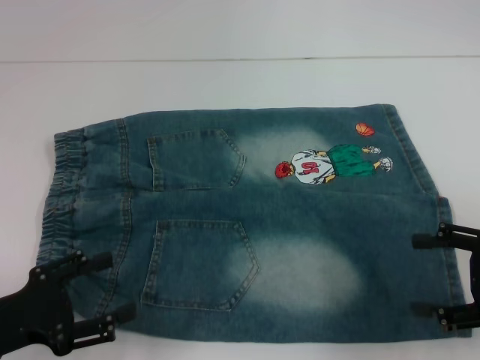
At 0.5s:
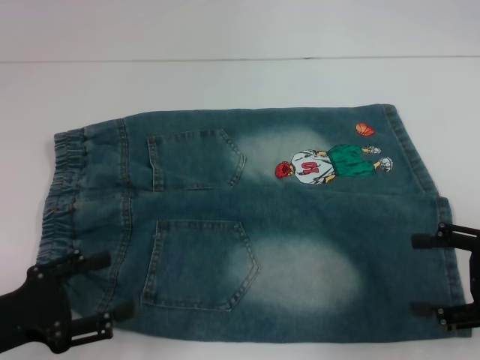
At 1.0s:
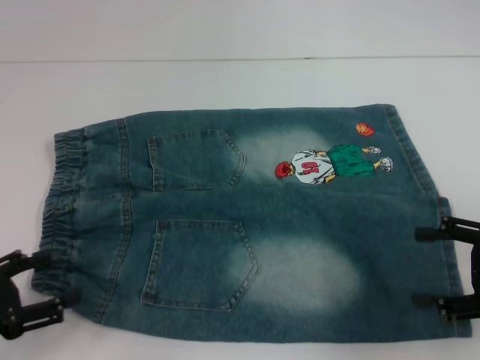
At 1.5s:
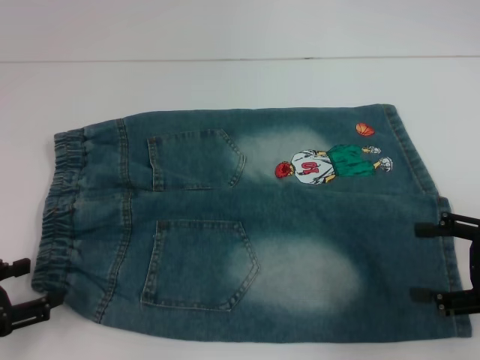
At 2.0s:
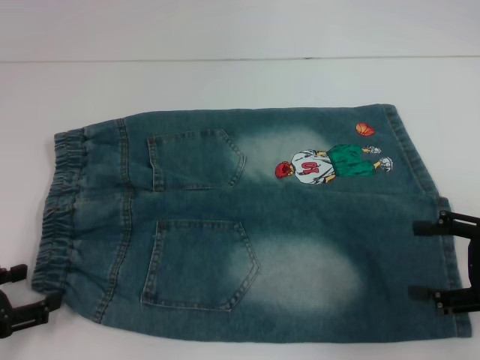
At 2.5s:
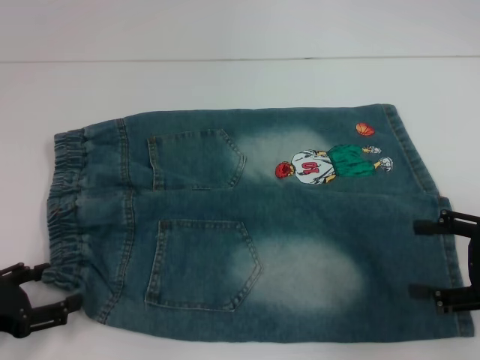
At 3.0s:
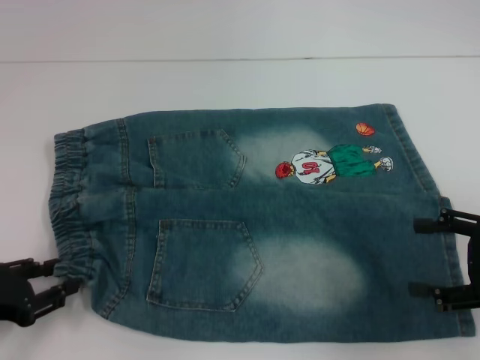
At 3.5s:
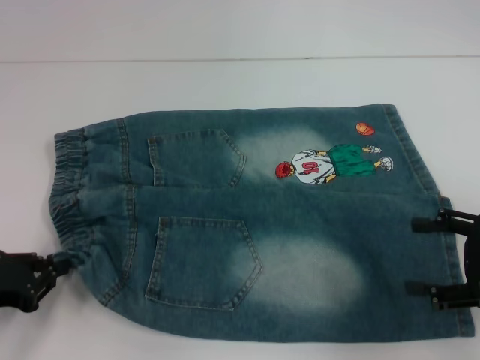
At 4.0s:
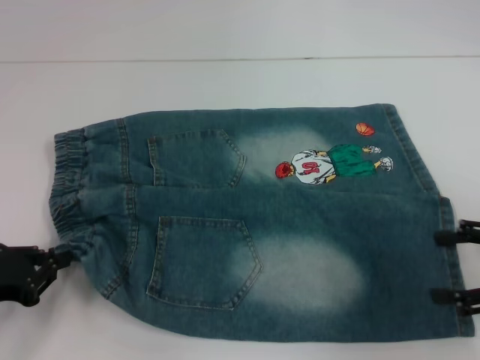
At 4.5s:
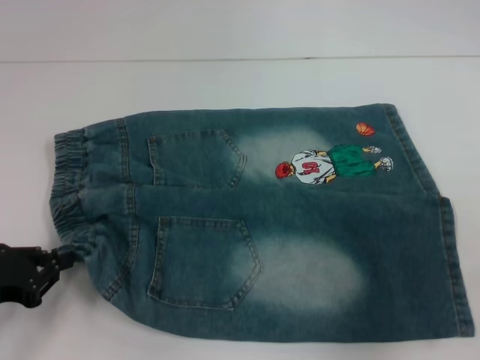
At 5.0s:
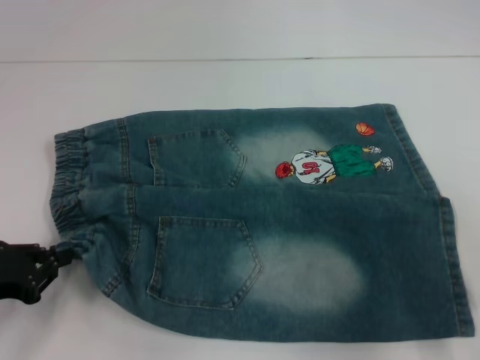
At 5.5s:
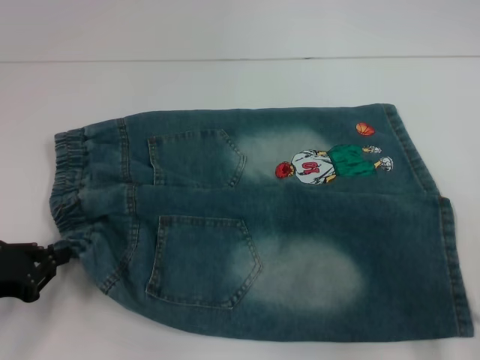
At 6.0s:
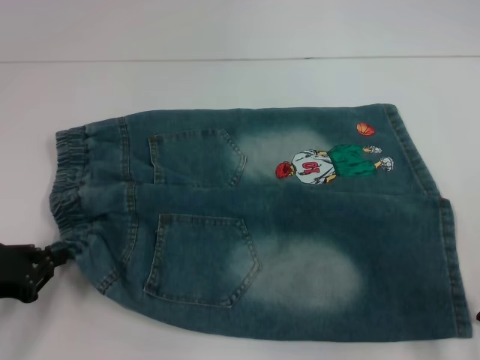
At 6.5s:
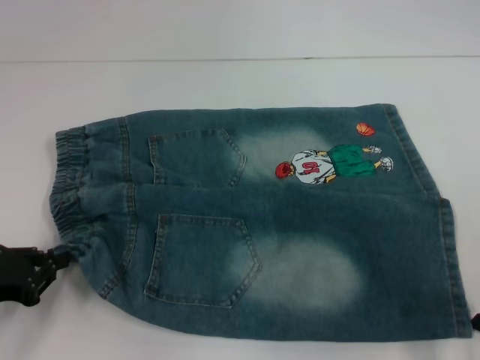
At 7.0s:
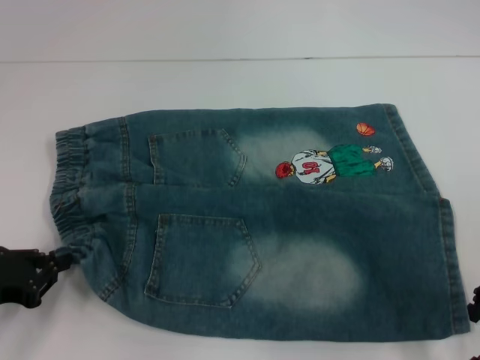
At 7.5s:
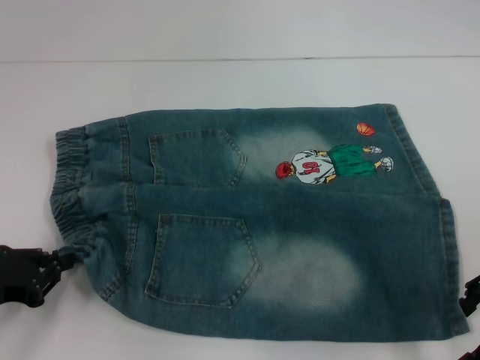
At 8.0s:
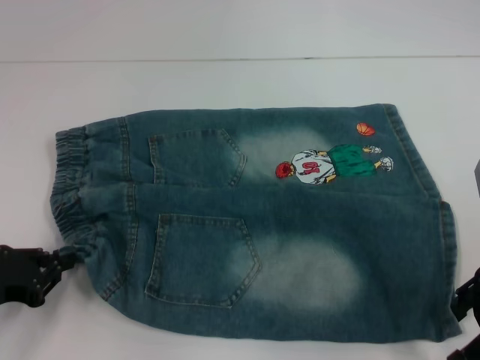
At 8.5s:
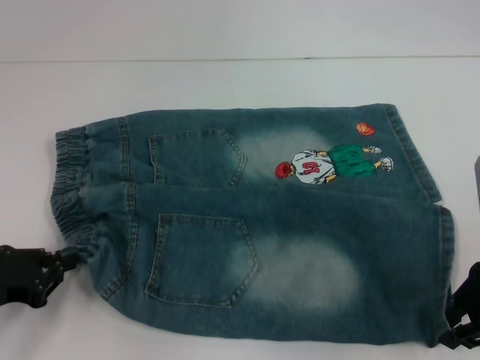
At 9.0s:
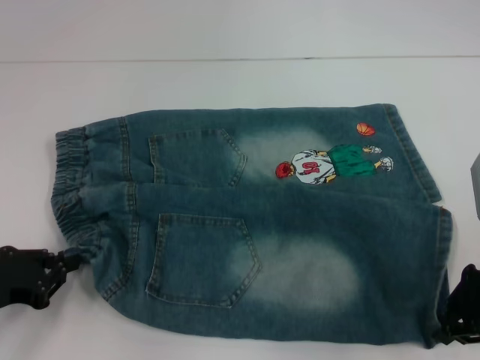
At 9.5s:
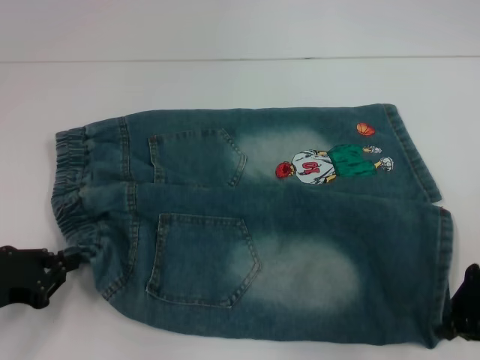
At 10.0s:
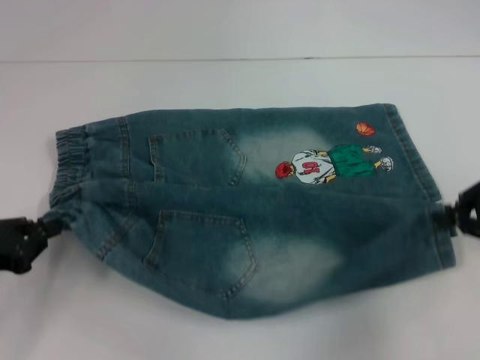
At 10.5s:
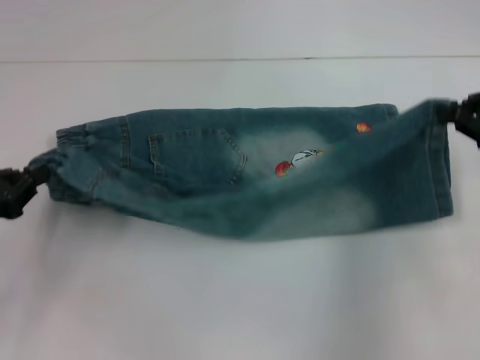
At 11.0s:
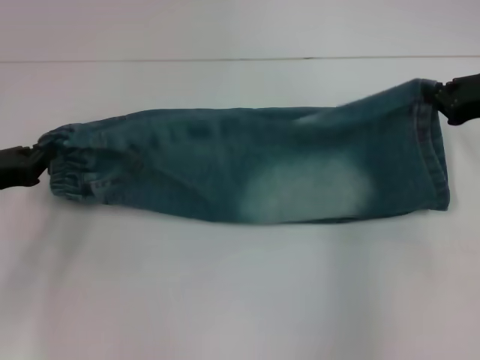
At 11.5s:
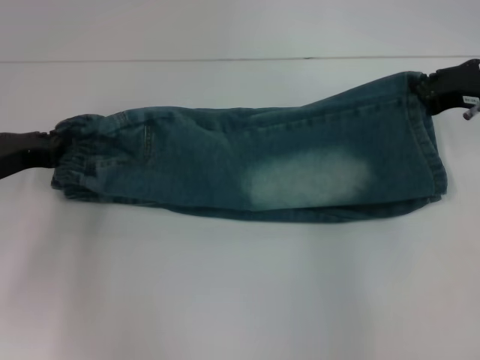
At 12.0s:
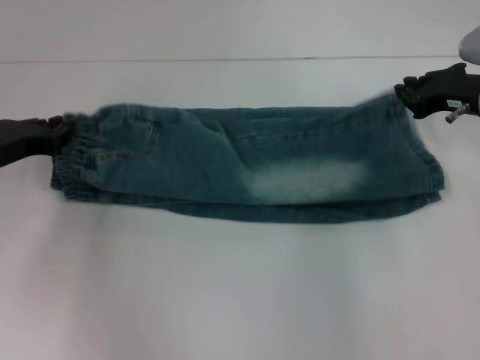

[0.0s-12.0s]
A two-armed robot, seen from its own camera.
Step, 0.0s to 3.0s: Hold the lower left waistband with your left hand.
Step, 3.5s to 9.0s: Grab the lower right pant leg with your right hand.
Step, 9.5s to 12.0s: Fold upward with your right hand.
0.0s to 2.0s: The left gripper shifts by some 5 cm.
2.0s to 4.0s: The left gripper closes.
4.0s to 6.0s: The right gripper heads to the left, covering about 5 cm.
6.0s to 8.0s: The grippers stay close to where they were, moving slightly.
8.0s to 10.0s: The right gripper changes place by approximately 5 cm, and closes its fingers.
10.0s to 12.0s: The grippers both shift forward by approximately 10 cm.

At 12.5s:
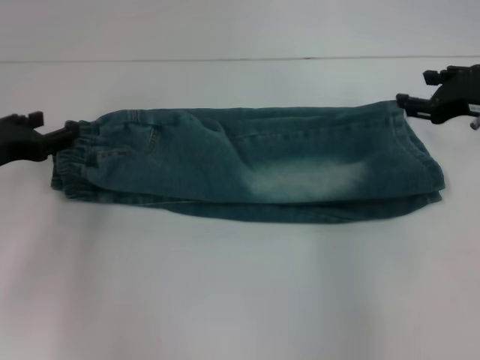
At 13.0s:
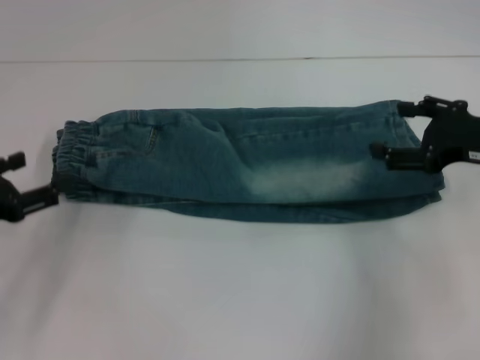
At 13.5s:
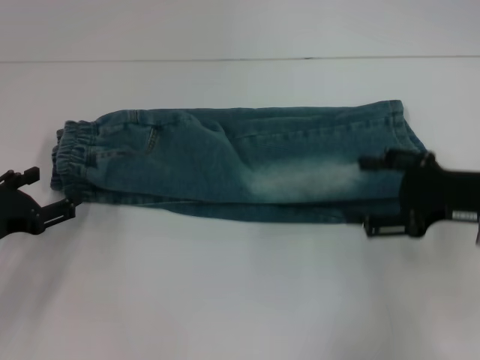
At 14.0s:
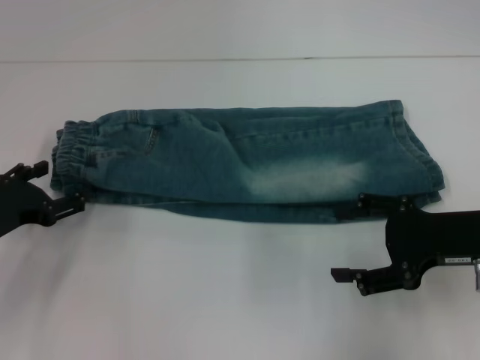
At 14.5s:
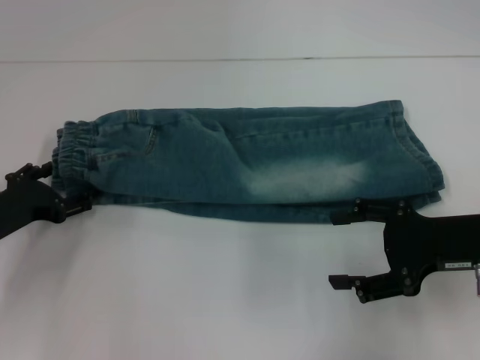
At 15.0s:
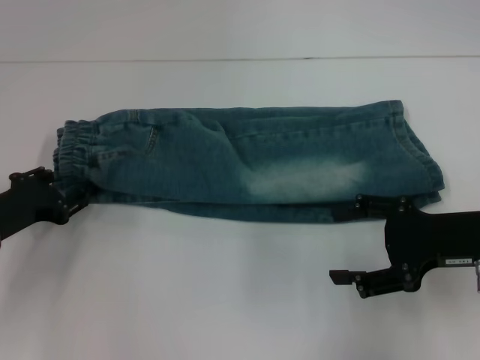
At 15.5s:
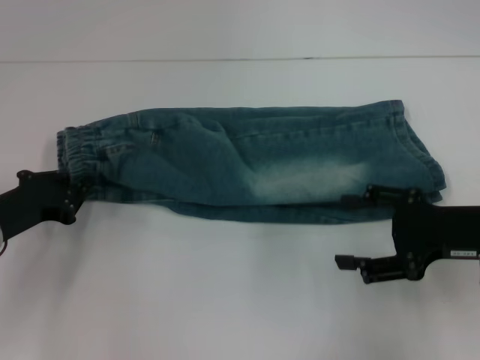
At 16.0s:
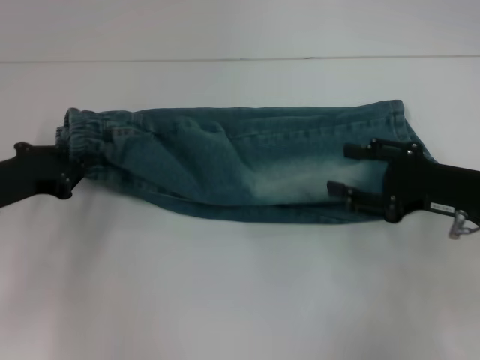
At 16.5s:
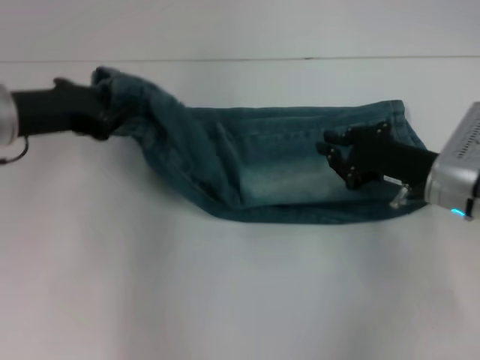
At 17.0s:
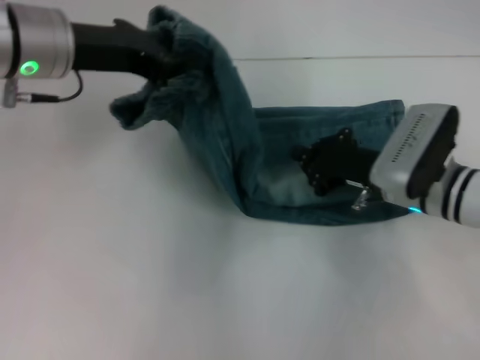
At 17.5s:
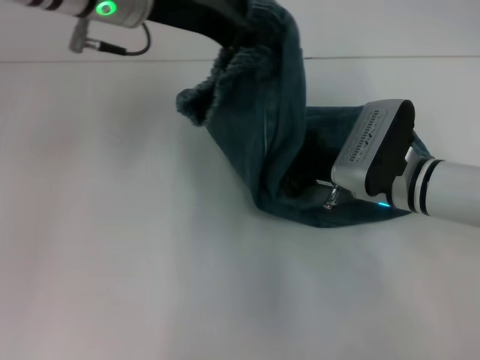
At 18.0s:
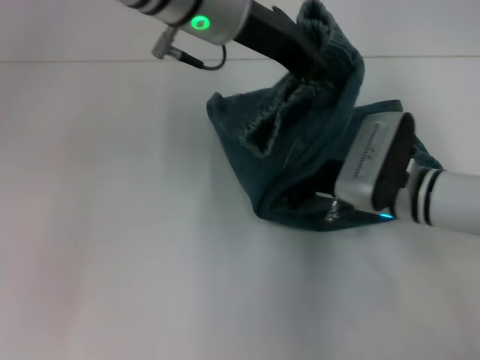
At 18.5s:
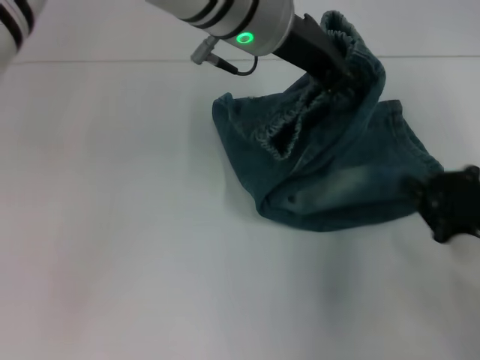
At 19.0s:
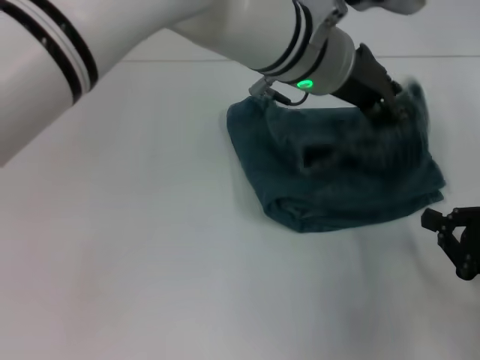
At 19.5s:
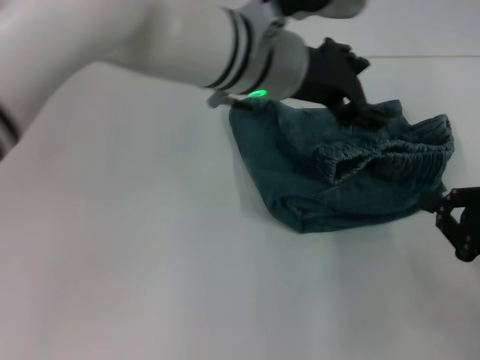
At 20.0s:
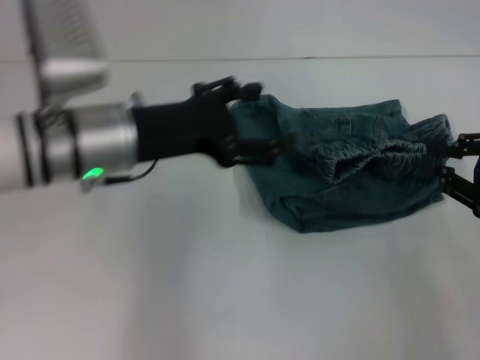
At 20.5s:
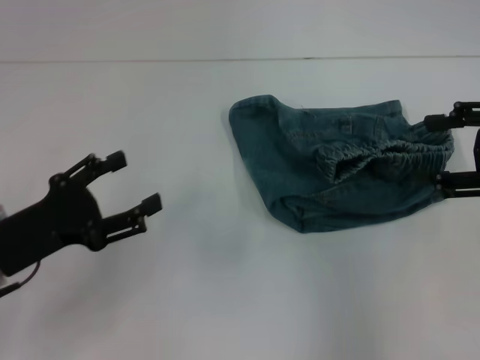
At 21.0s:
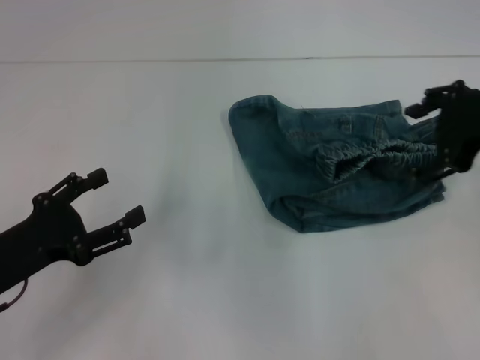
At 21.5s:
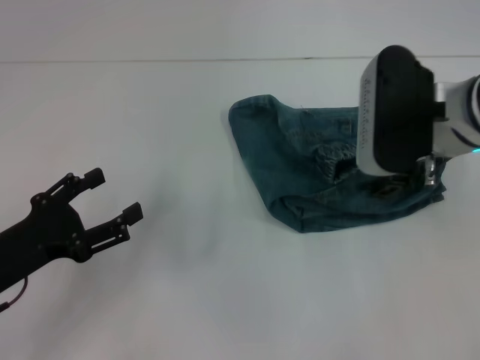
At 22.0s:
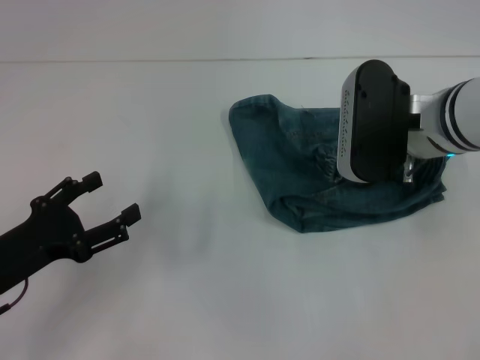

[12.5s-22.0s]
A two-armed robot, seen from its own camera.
Step, 12.5s to 15.5s: Hold the waistband with your left hand.
Step, 16.0s to 17.5s: Press the middle of the pants with your right hand.
Step, 18.0s to 19.0s: Fold to the right with your left hand.
12.5s to 14.5s: The right gripper shifts some 10 cm backward, and opens its fingers. Meanwhile the left gripper heads downward, covering roughly 5 cm, and opens its fingers.
14.5s to 16.5s: The right gripper is displaced forward by some 5 cm, and closes. The left gripper is displaced upward by some 15 cm, and closes its fingers.
16.5s to 18.0s: The right gripper moves to the left, some 5 cm, and closes; the left gripper heads to the right and upward, covering approximately 20 cm.
18.0s to 20.0s: The right gripper shifts roughly 20 cm to the right, upward and backward, while the left gripper goes approximately 15 cm to the left, downward and backward, and opens its fingers.
20.0s to 22.0s: The left gripper shifts approximately 20 cm to the left, backward and downward; the right gripper moves to the left and forward, some 20 cm, and opens.

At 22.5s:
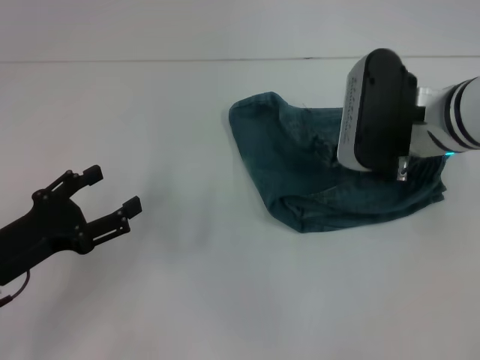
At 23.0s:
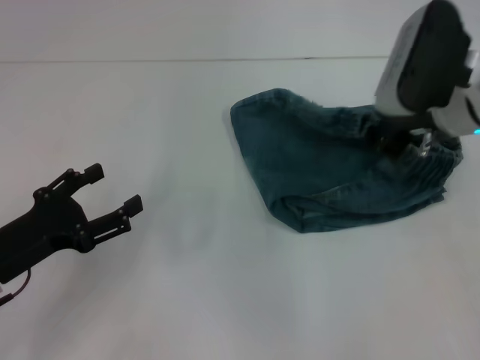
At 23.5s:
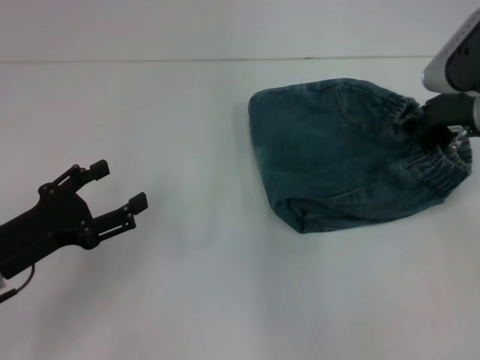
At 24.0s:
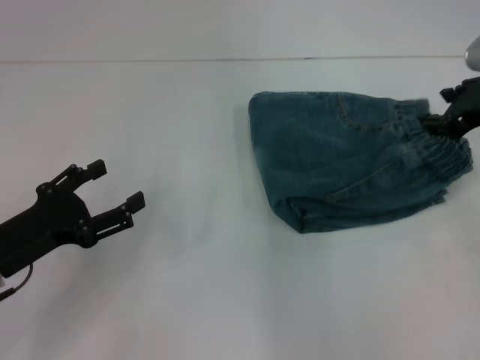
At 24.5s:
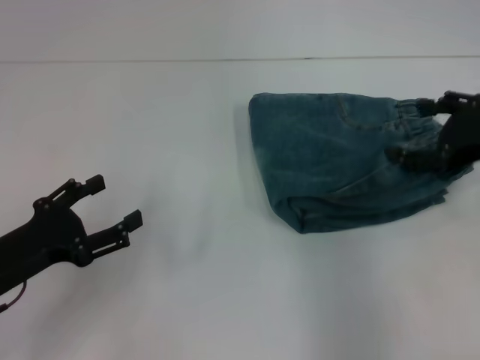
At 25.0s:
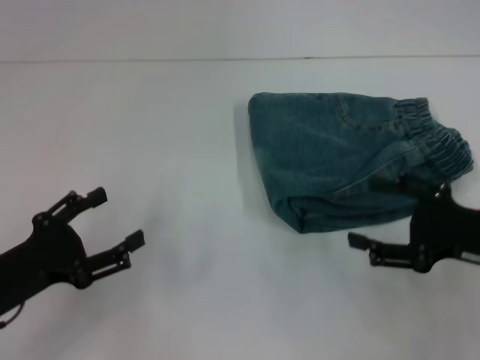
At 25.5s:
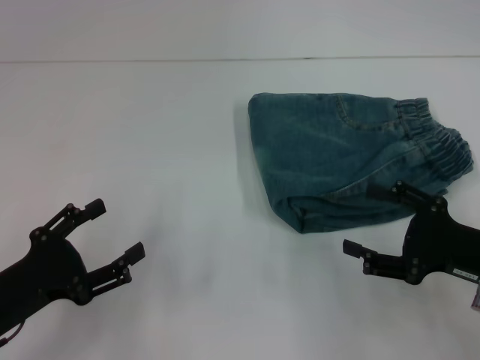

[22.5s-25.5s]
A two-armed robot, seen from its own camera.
22.5s to 24.0s: The right gripper moves to the right, approximately 10 cm.
24.0s to 25.5s: The right gripper travels backward and downward by some 15 cm, and opens. Meanwhile the left gripper moves about 5 cm.
